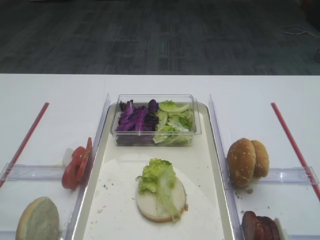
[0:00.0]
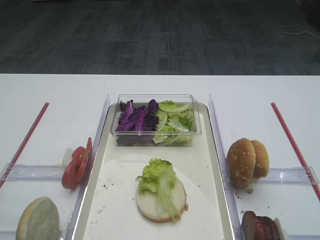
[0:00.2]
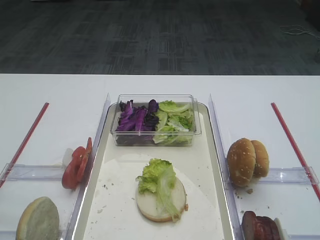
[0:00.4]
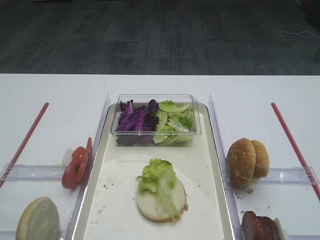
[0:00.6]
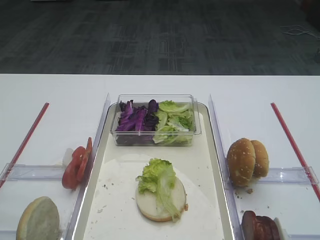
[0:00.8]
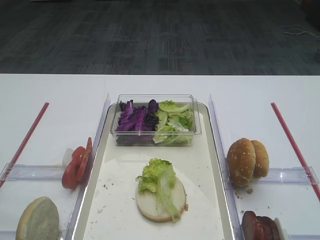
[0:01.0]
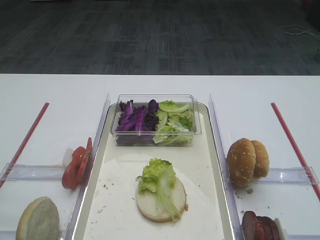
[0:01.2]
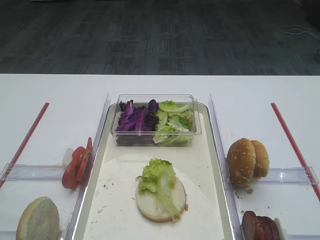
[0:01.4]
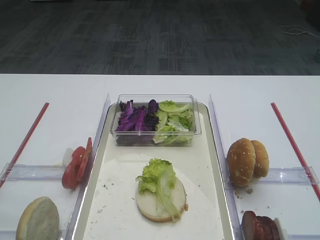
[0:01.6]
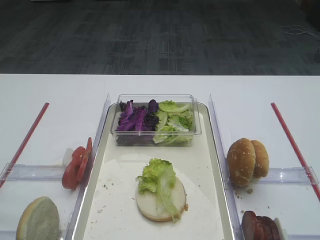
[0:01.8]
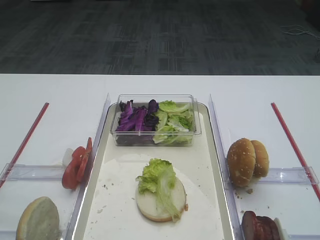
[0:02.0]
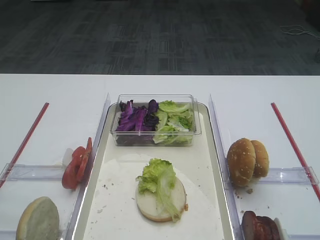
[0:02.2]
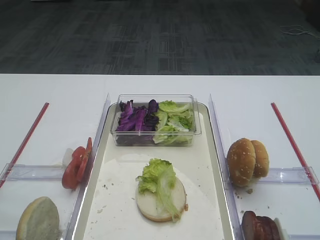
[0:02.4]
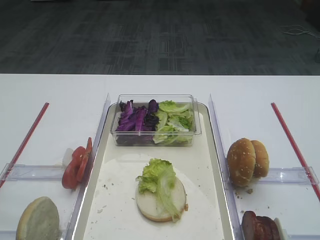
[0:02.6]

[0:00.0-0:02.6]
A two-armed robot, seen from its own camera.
0:01.2 to 0:02.6: Neither gripper changes place.

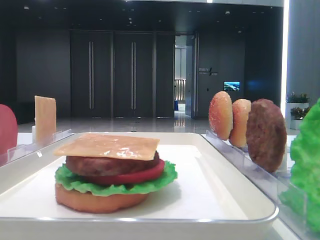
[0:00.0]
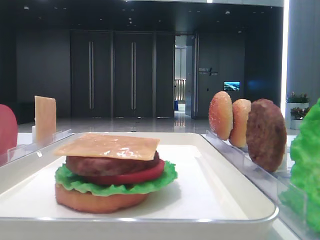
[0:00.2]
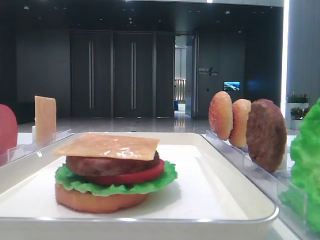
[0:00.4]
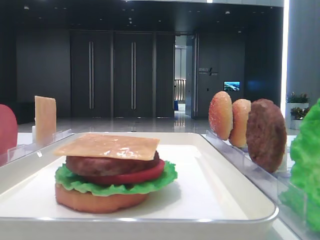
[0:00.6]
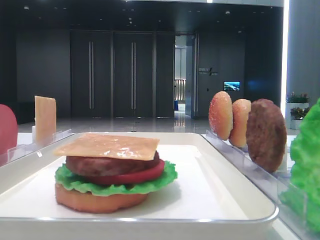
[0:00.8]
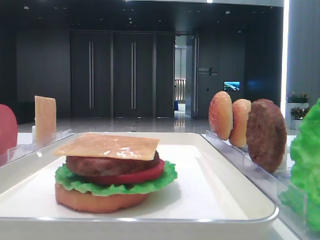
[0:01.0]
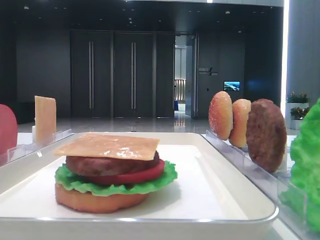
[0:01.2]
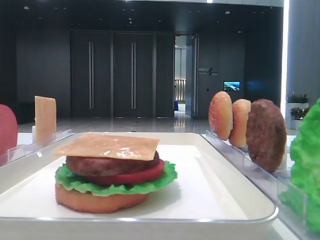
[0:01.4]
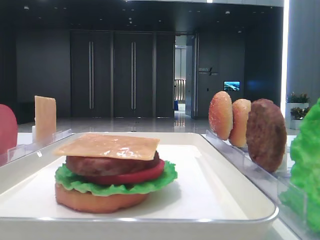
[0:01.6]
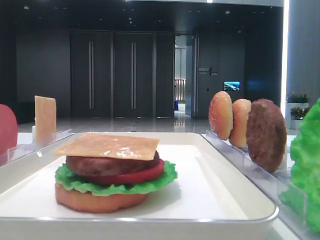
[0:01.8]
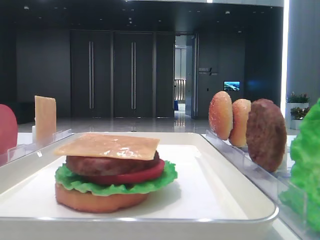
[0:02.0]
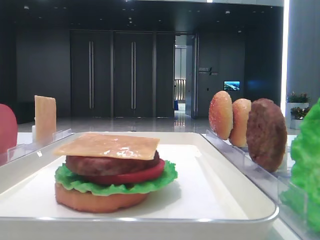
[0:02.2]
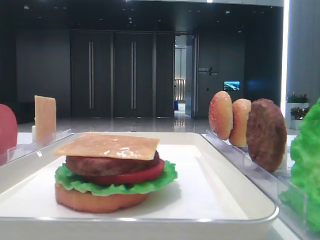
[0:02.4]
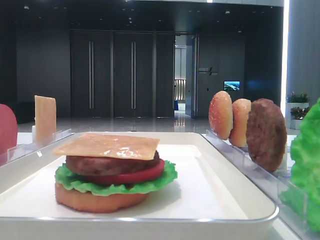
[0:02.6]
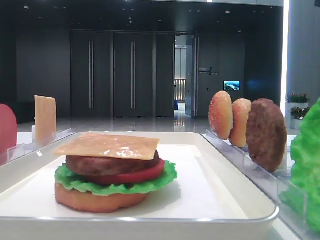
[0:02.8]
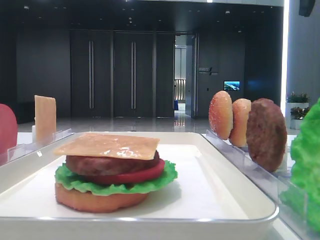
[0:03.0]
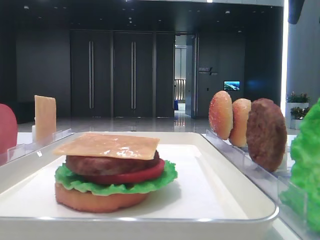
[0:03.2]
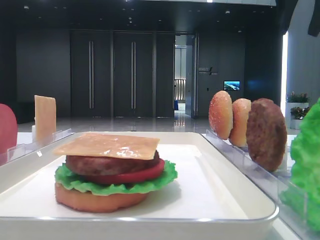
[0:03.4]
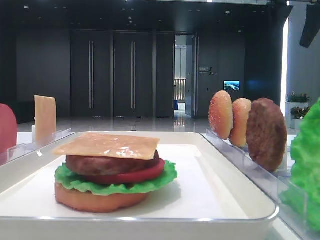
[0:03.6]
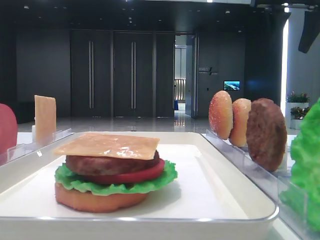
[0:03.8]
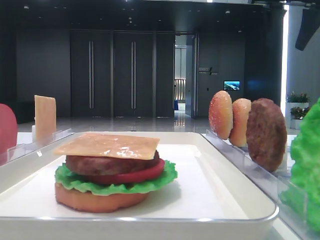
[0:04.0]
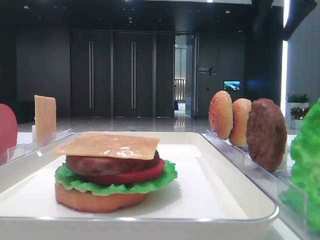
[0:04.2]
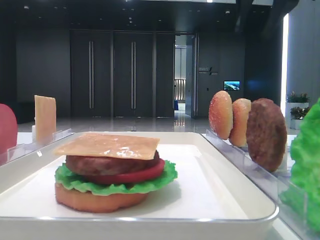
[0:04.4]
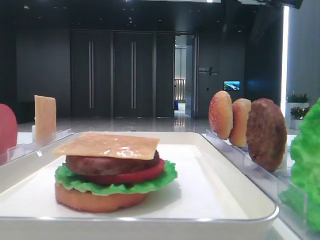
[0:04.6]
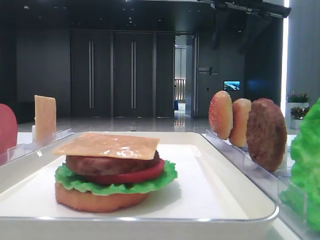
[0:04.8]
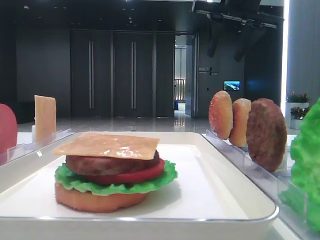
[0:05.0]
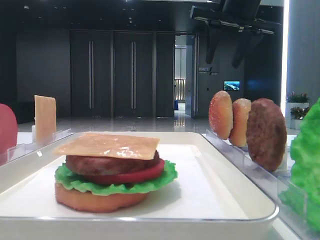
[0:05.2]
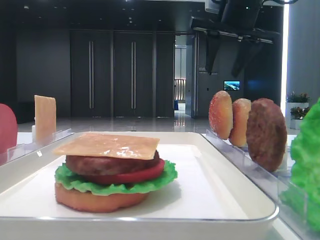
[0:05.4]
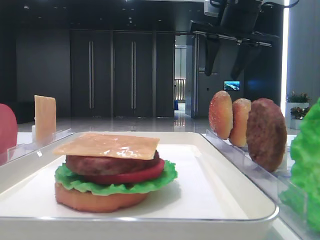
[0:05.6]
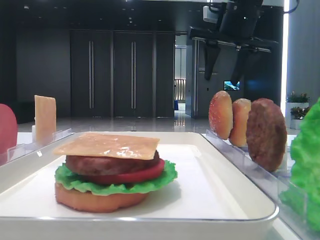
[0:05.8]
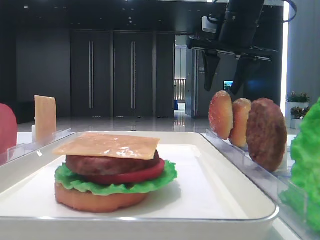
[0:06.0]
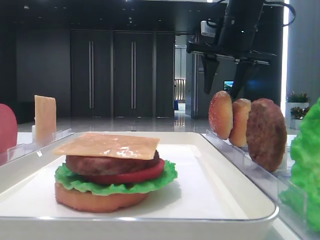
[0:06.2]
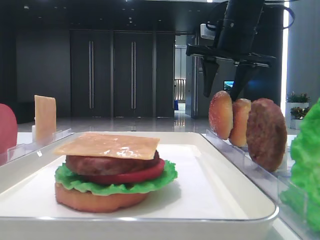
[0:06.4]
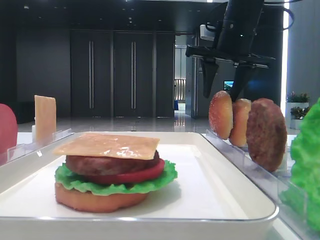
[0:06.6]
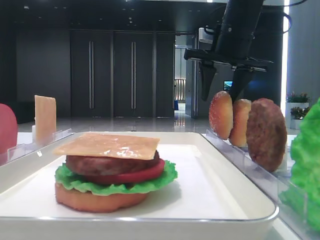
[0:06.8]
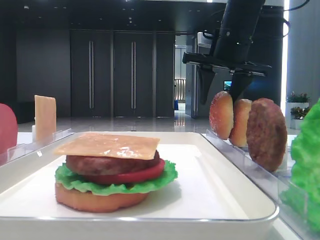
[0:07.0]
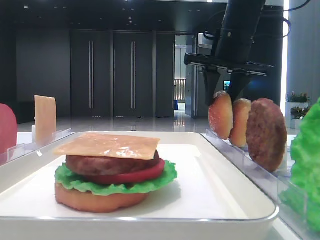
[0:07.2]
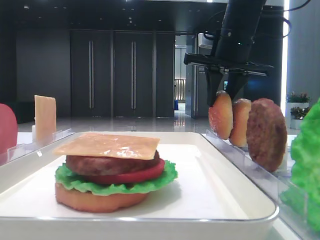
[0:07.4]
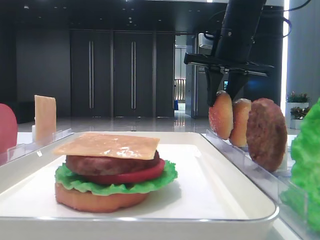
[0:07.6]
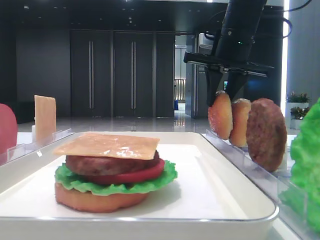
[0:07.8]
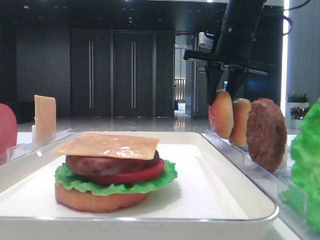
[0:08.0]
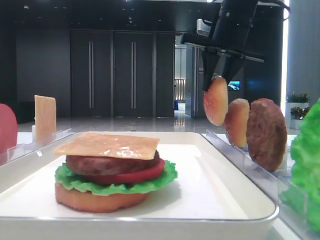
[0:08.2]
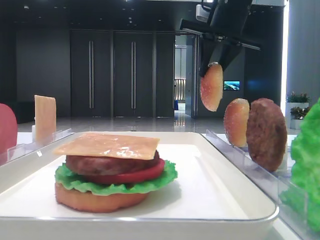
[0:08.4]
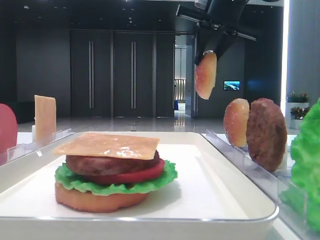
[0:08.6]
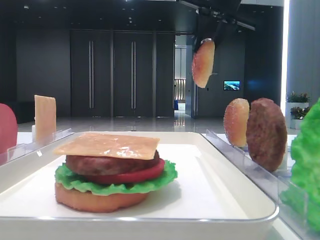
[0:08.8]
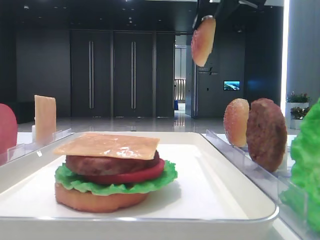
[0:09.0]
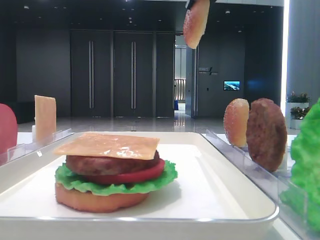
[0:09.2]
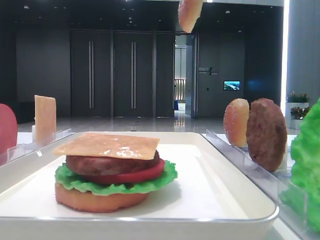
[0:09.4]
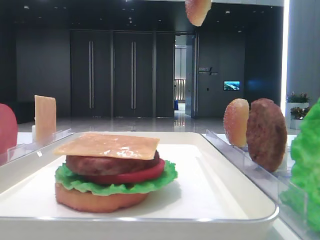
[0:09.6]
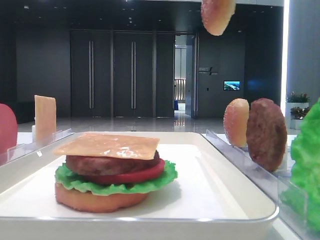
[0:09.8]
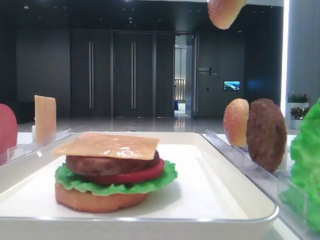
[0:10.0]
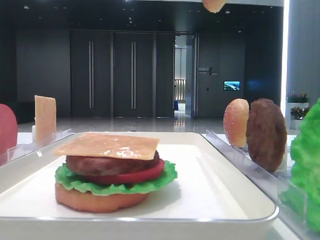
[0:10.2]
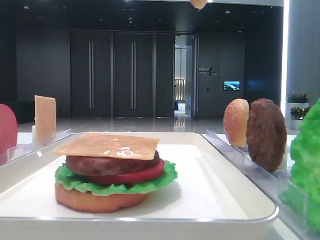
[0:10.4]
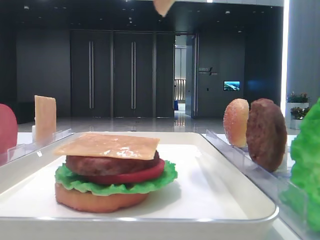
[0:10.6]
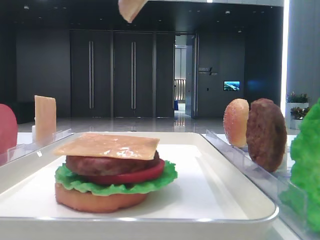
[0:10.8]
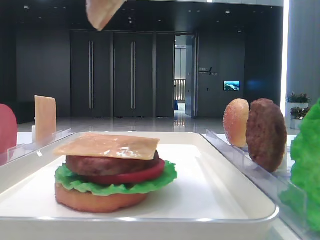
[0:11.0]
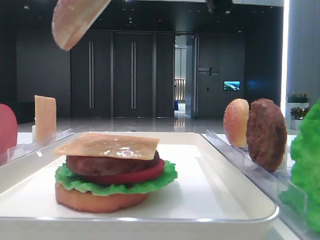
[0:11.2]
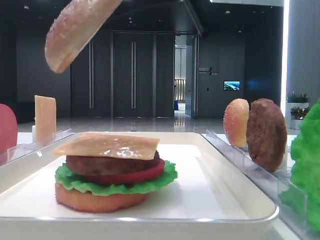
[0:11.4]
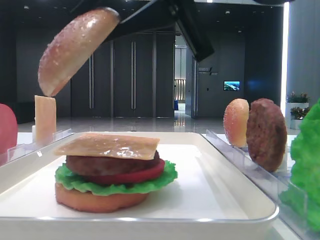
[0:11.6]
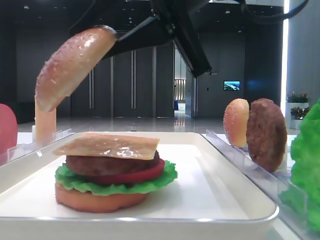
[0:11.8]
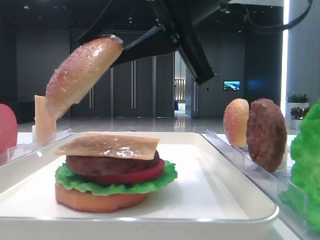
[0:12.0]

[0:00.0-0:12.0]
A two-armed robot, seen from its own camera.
Step, 0:00.0 to 0:07.8: Pick up the top bread slice with the right hand.
0:03.0 to 0:04.4: The right gripper goes approximately 10 cm forward and to the left.
0:04.4 to 0:06.0: The right gripper travels downward by roughly 10 cm.
0:06.0 to 0:07.6: The right gripper closes.
0:07.6 to 0:09.0: The right gripper is displaced upward by some 10 cm.
0:09.0 to 0:10.4: The right gripper moves backward, roughly 20 cm.
0:10.4 to 0:12.0: The right gripper shifts some 20 cm downward and to the left.

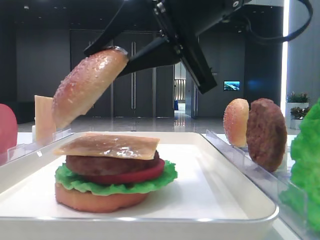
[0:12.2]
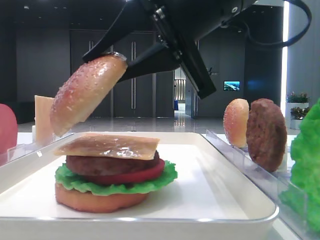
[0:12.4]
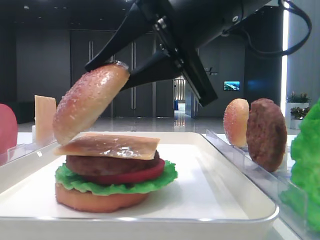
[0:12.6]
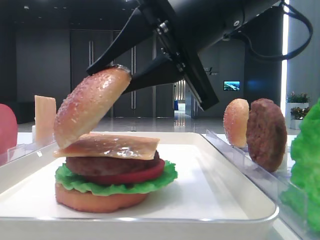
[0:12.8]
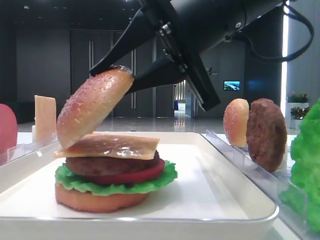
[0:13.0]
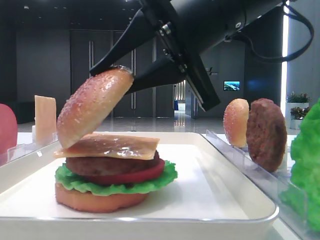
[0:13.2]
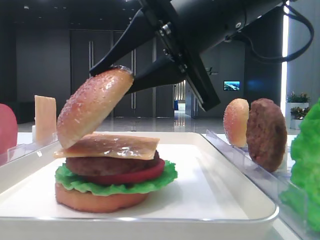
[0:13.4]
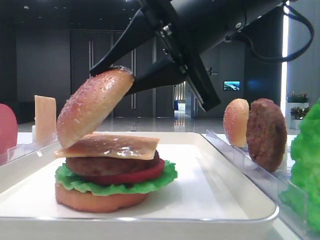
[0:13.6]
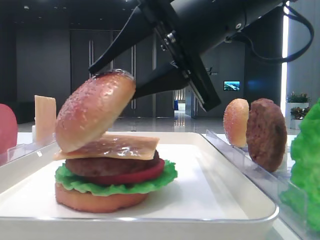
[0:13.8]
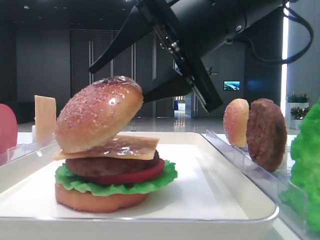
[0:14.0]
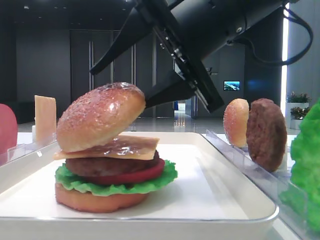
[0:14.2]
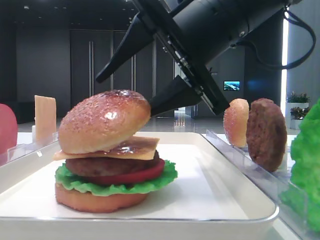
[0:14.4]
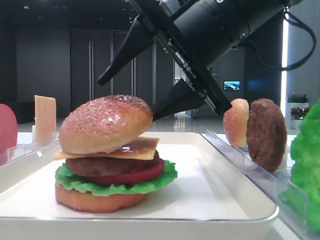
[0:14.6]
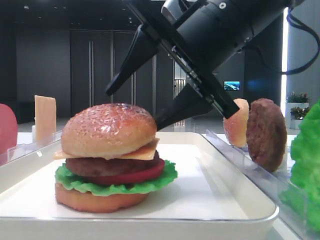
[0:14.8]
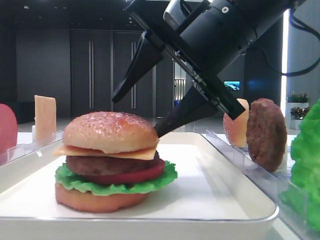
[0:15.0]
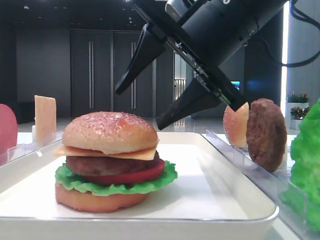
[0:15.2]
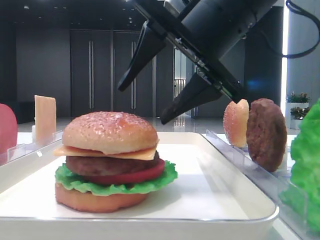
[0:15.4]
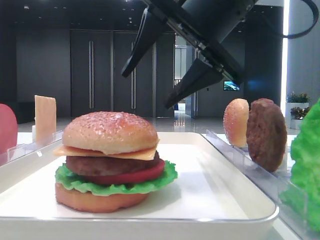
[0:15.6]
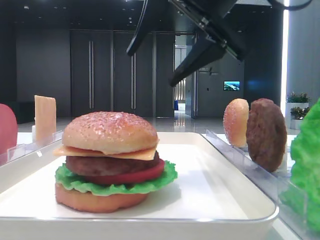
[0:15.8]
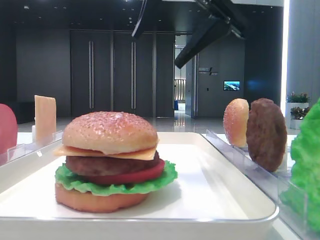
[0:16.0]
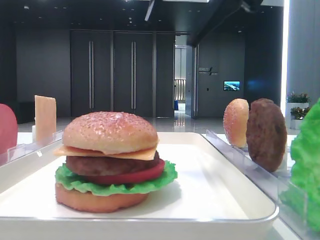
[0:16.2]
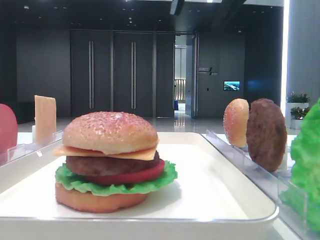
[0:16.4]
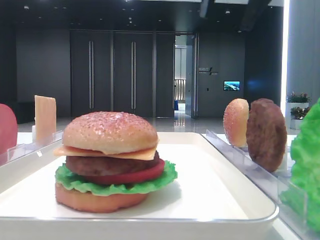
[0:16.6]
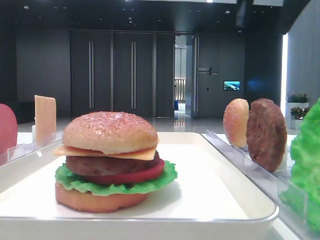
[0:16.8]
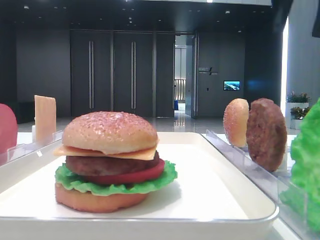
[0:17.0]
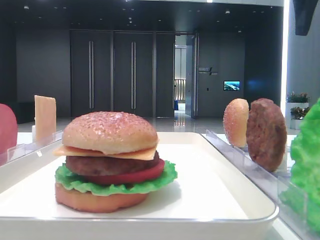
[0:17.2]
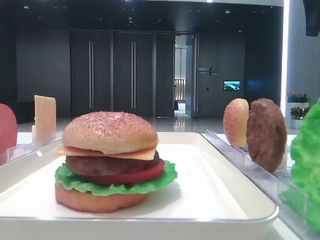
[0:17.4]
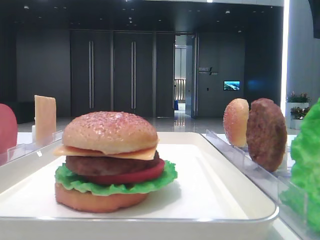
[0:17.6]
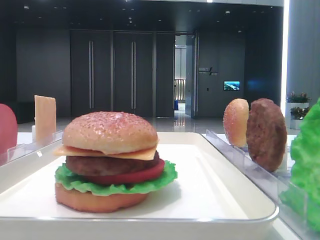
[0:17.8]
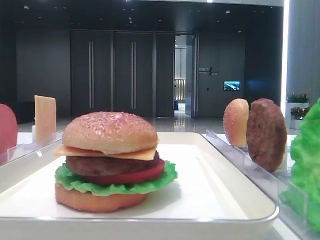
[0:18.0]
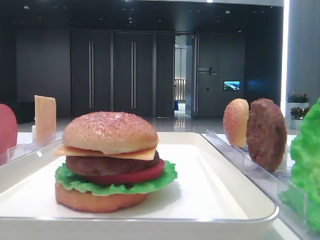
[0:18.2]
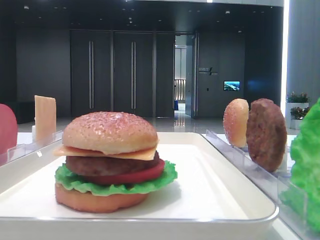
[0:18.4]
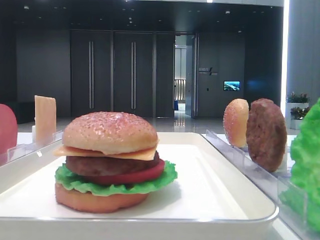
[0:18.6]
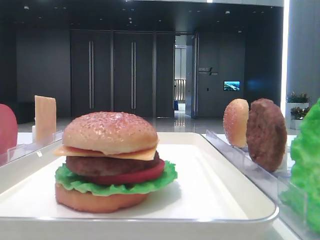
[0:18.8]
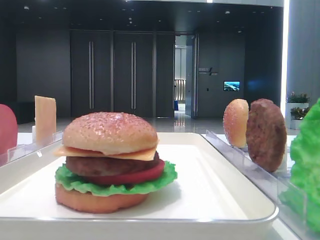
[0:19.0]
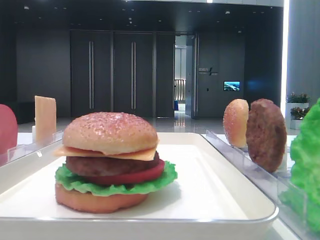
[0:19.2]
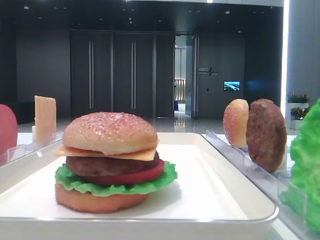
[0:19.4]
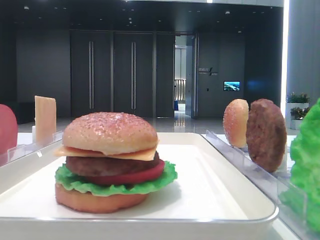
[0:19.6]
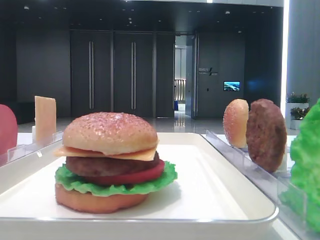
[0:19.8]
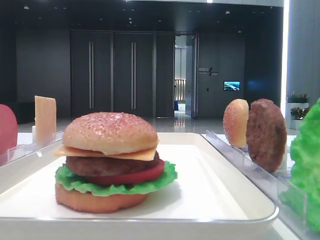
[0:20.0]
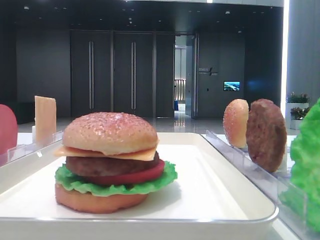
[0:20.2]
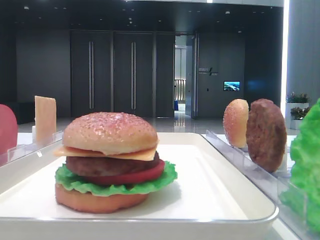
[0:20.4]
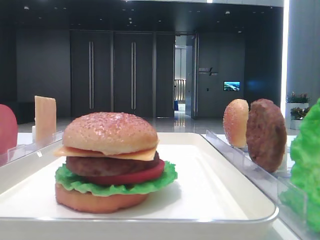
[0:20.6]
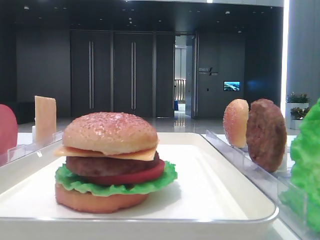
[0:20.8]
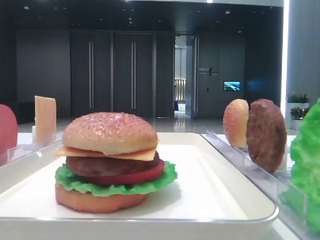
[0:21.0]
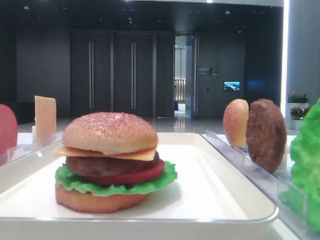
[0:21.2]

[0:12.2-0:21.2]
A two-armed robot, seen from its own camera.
Step, 0:12.2 to 0:15.6: Place the top bread slice on the cheese with the right hand.
0:12.2 to 0:13.8: The grippers make only small movements.
0:13.8 to 0:15.2: The right gripper opens its fingers.
0:15.2 to 0:16.6: The right gripper shifts some 15 cm upward.
